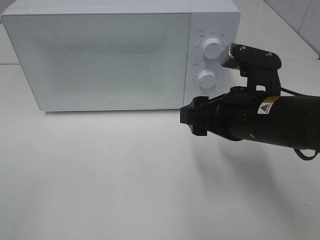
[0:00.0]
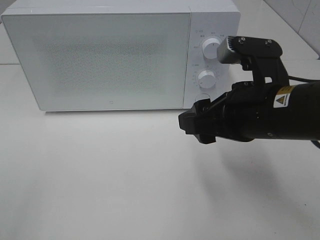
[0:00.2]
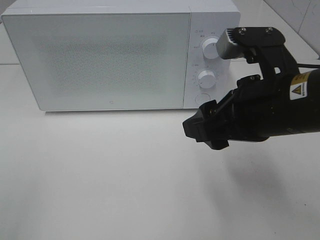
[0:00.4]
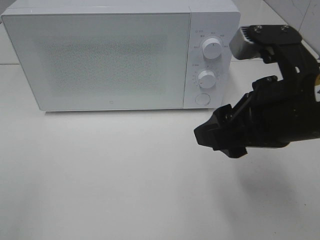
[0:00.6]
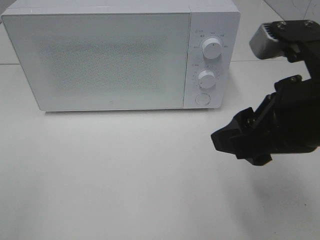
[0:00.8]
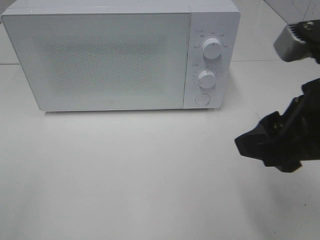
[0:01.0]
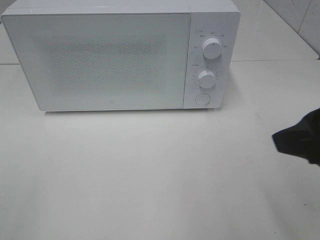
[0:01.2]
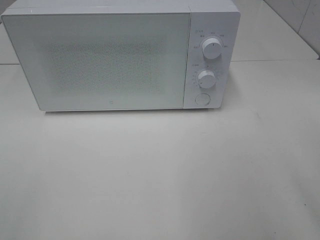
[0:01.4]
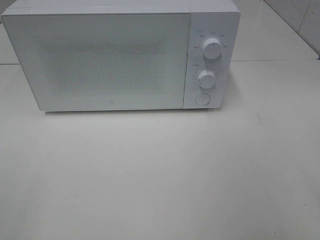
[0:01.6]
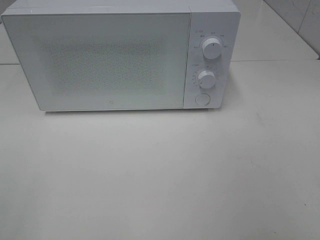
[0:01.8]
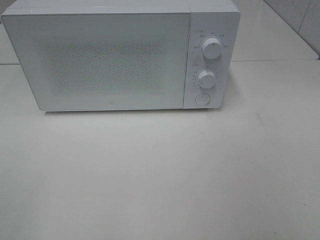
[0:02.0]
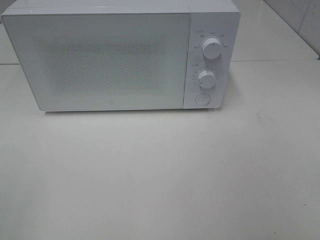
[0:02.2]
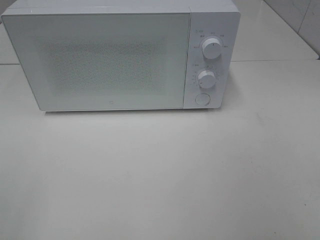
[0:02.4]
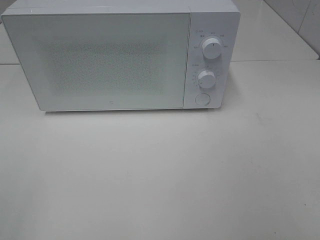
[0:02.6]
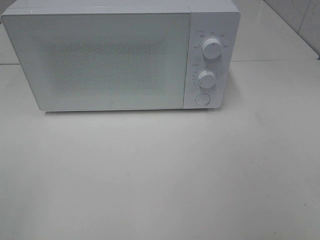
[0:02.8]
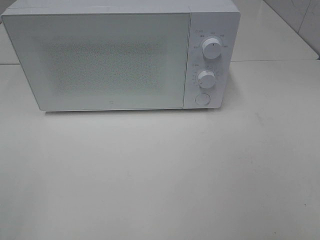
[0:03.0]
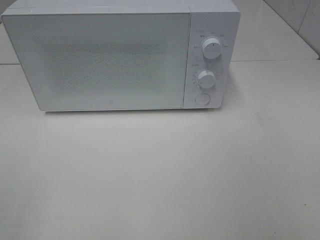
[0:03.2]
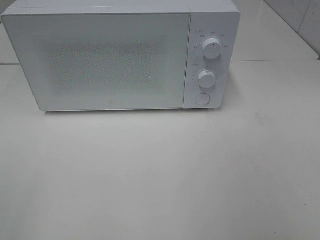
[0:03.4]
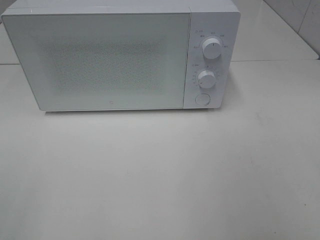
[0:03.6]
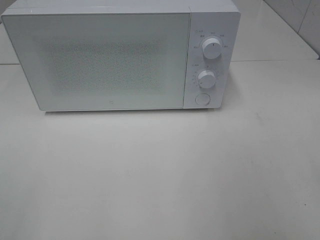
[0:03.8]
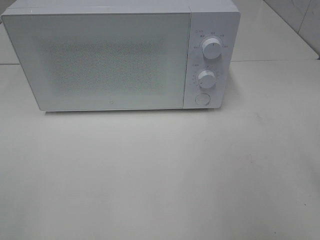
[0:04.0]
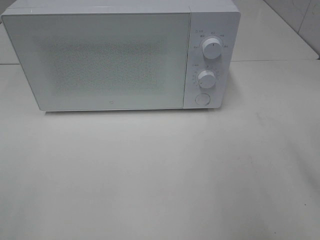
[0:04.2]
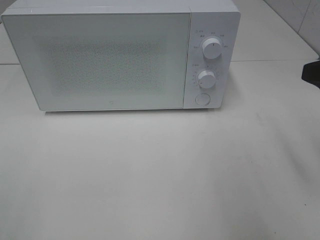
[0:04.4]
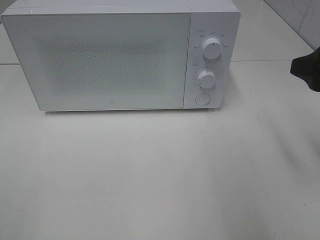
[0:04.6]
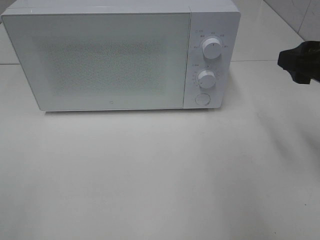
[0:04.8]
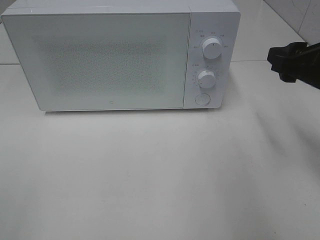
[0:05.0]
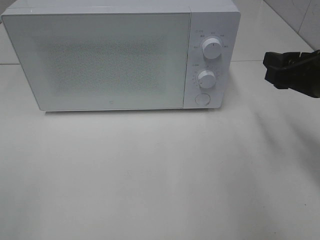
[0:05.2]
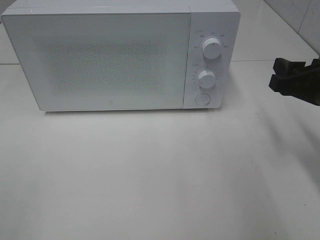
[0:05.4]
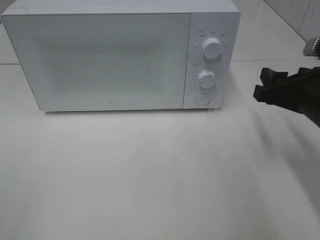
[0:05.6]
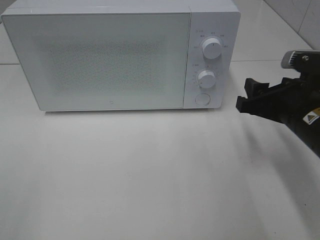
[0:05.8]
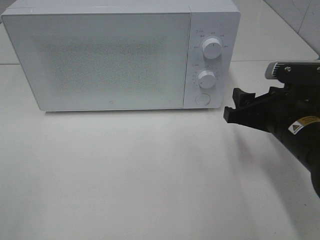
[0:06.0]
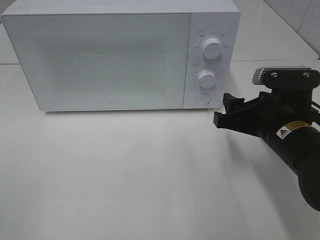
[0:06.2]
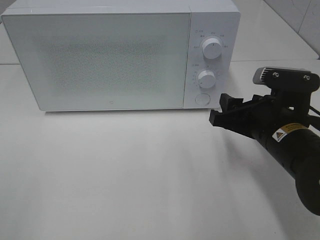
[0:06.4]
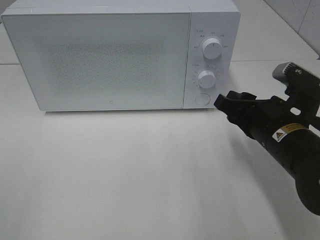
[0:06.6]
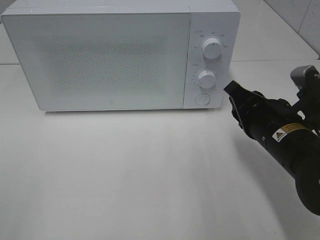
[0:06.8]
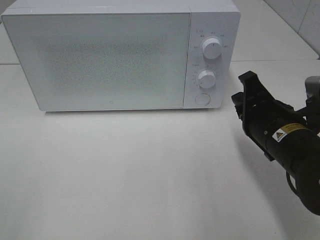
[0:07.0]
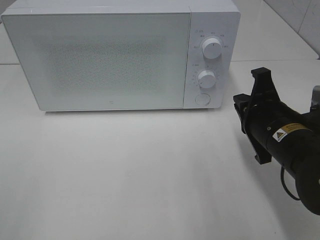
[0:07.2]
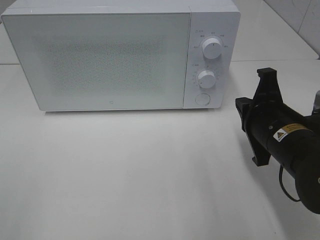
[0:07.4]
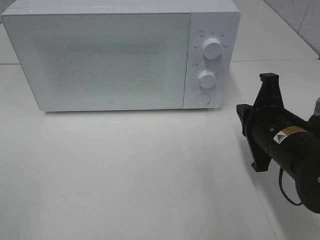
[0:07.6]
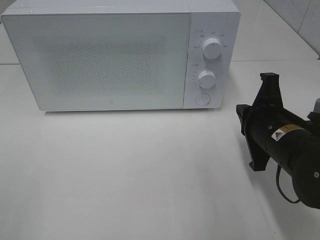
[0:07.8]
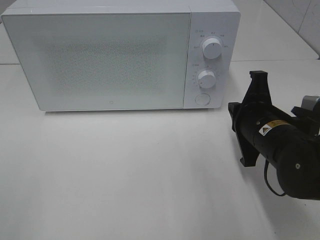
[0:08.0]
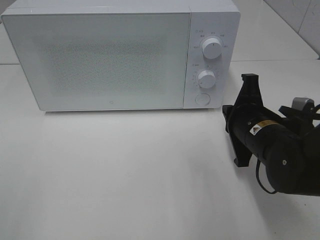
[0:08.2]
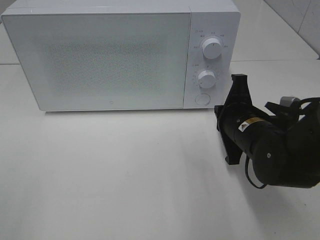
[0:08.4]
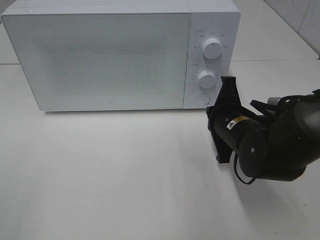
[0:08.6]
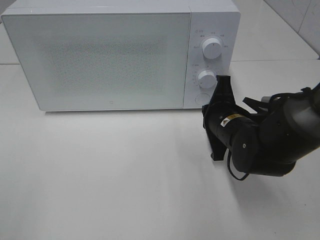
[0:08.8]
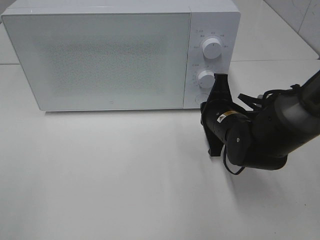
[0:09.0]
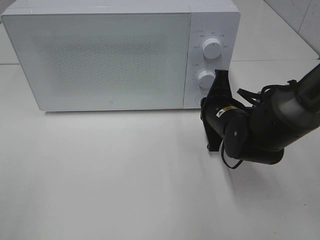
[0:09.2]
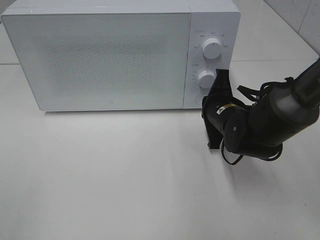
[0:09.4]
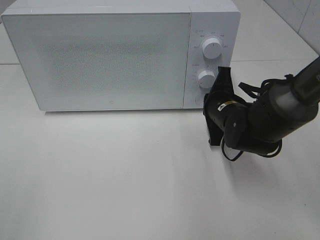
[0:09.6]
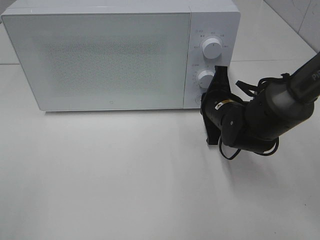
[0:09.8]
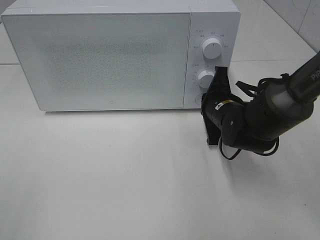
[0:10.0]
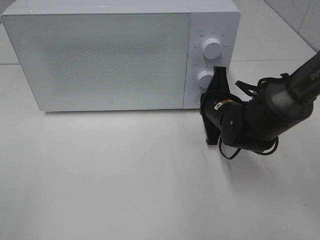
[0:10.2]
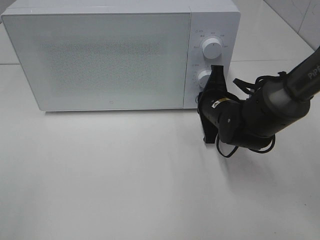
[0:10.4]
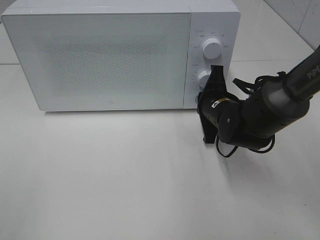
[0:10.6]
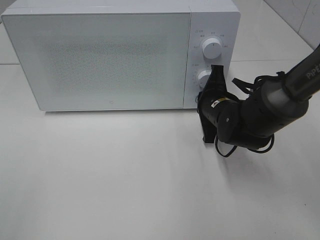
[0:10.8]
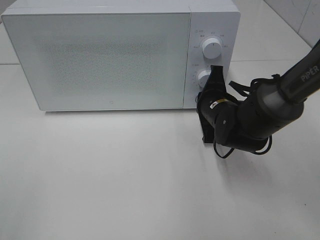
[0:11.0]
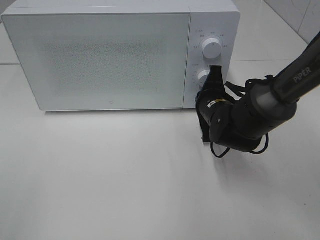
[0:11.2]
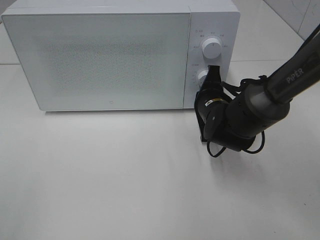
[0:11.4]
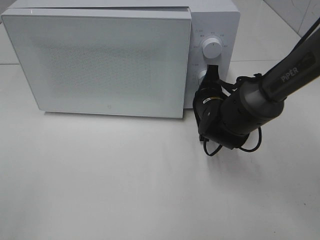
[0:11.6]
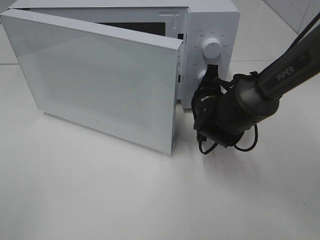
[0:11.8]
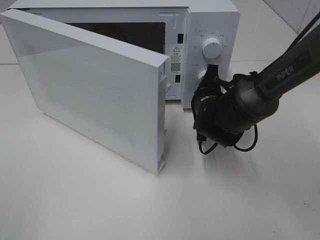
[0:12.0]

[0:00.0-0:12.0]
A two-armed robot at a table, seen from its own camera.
Task of the whole recording: Heat the burger.
0:00.0 to 0:01.6: The right gripper shifts about 20 cm to the right, backward and upward.
0:04.4 to 0:06.0: The right gripper heads downward, to the left and forward, covering roughly 15 cm.
0:06.0 to 0:07.6: The right gripper closes up.
0:07.6 to 0:09.0: The right gripper travels forward and to the left by roughly 10 cm.
0:09.0 to 0:10.4: The grippers move only a little.

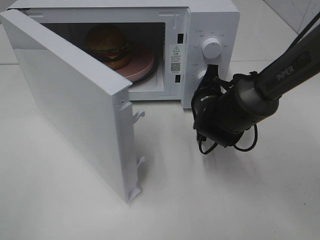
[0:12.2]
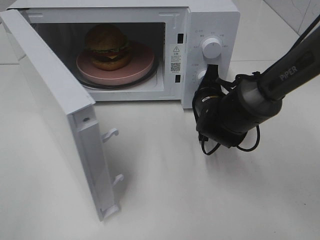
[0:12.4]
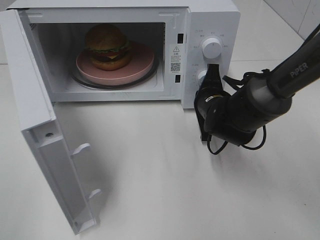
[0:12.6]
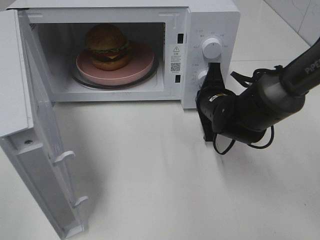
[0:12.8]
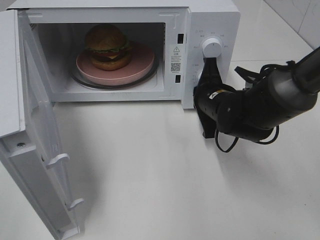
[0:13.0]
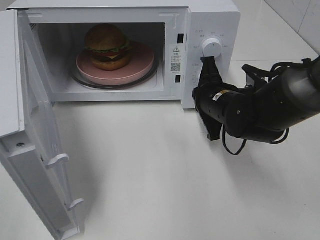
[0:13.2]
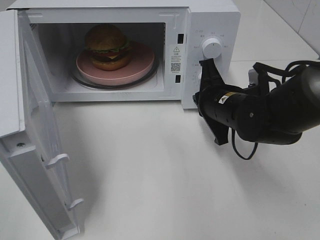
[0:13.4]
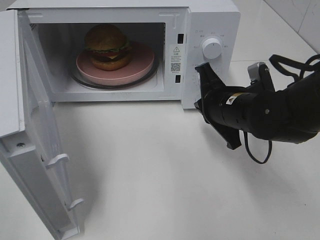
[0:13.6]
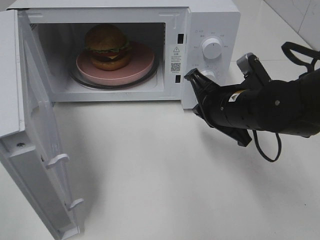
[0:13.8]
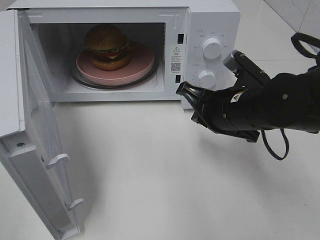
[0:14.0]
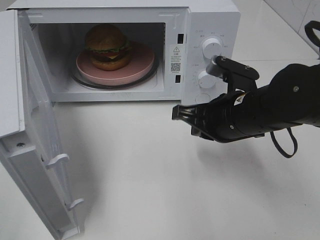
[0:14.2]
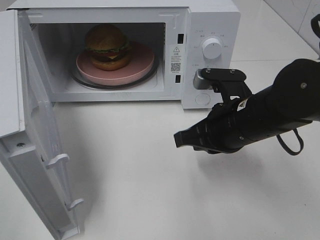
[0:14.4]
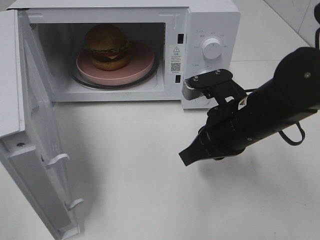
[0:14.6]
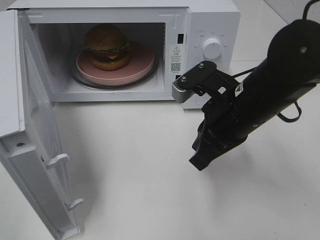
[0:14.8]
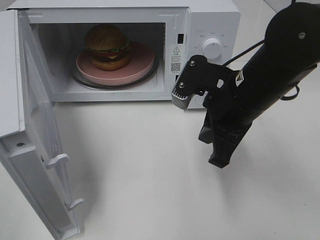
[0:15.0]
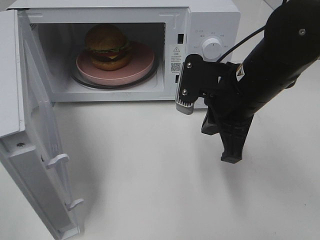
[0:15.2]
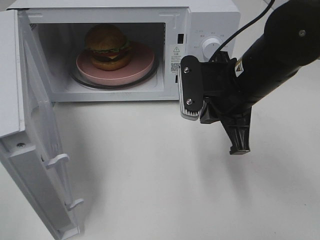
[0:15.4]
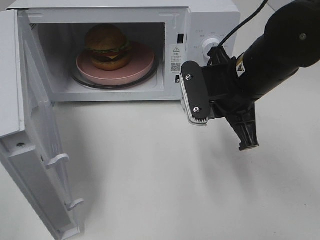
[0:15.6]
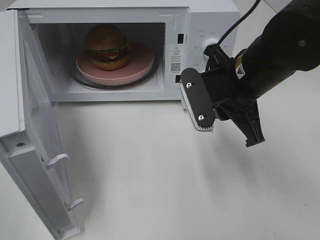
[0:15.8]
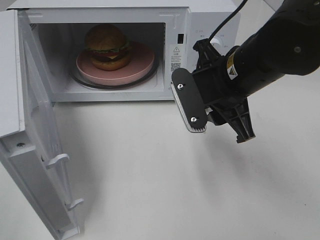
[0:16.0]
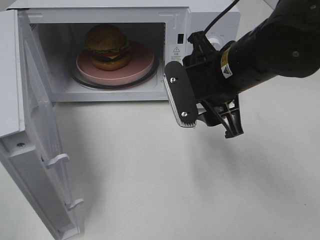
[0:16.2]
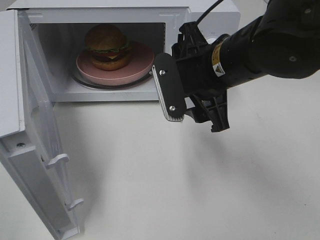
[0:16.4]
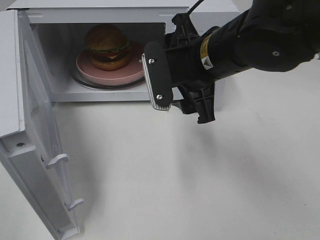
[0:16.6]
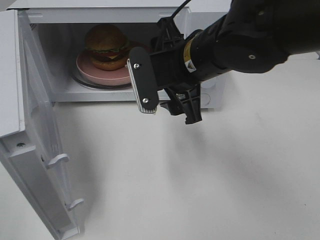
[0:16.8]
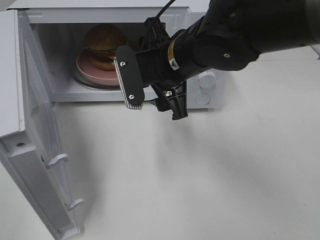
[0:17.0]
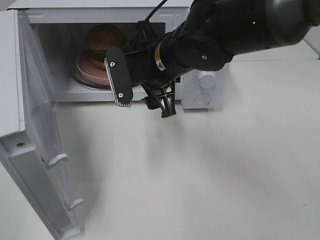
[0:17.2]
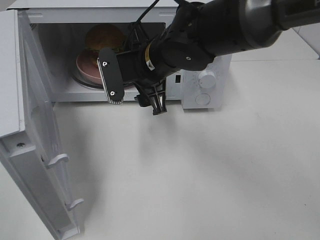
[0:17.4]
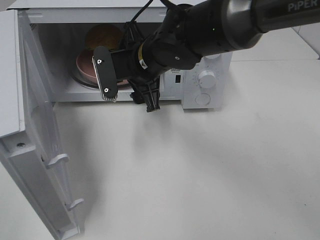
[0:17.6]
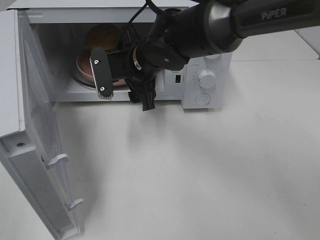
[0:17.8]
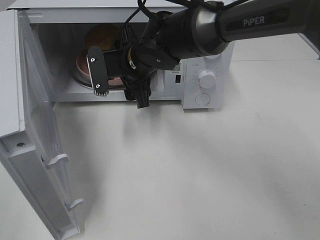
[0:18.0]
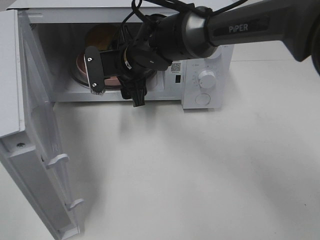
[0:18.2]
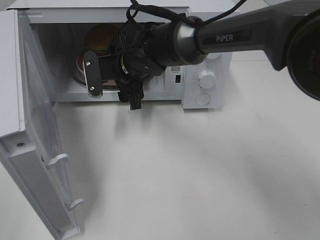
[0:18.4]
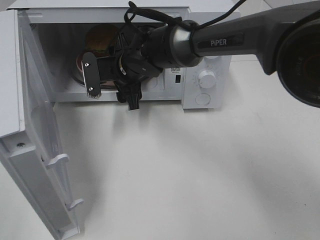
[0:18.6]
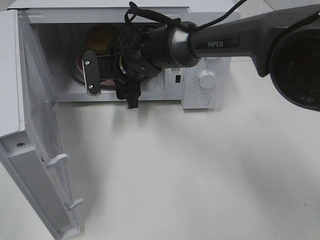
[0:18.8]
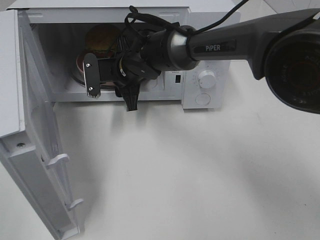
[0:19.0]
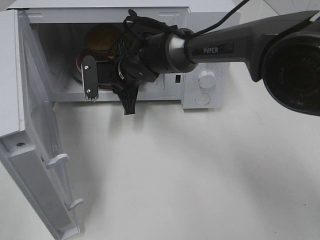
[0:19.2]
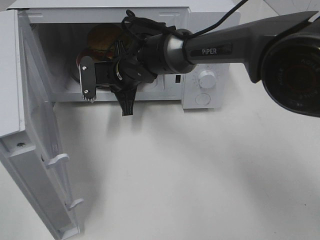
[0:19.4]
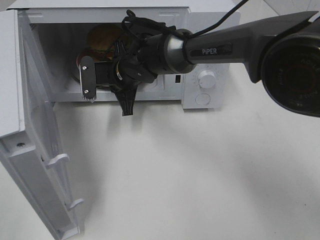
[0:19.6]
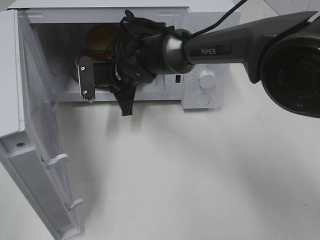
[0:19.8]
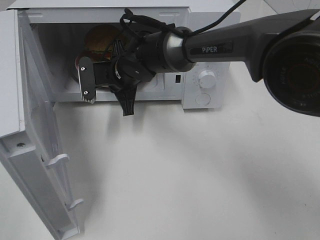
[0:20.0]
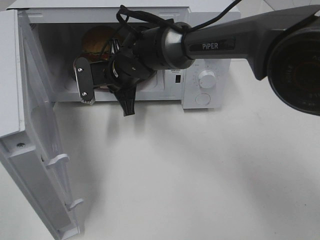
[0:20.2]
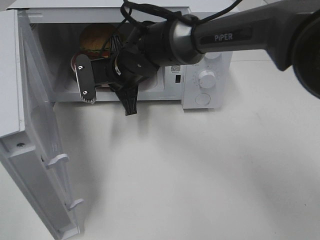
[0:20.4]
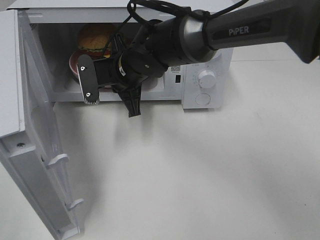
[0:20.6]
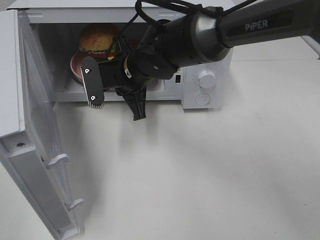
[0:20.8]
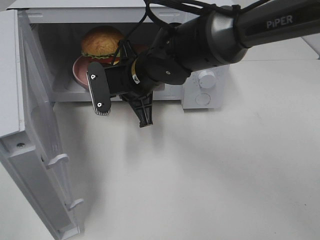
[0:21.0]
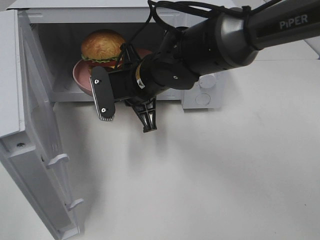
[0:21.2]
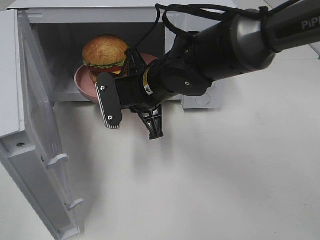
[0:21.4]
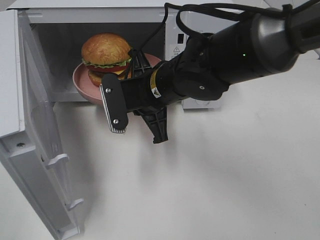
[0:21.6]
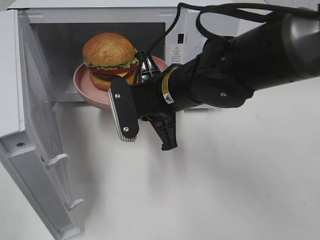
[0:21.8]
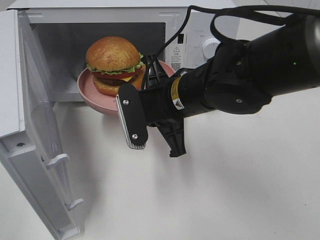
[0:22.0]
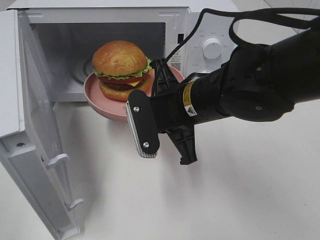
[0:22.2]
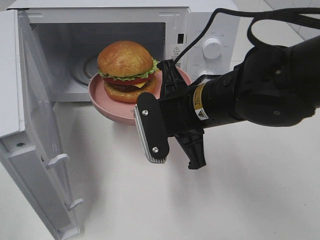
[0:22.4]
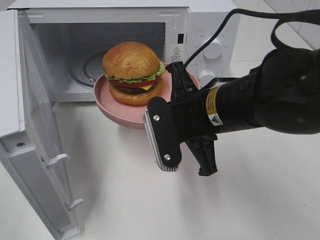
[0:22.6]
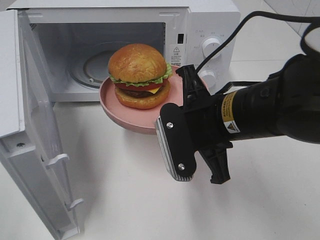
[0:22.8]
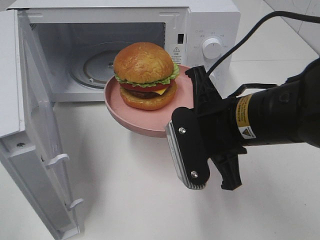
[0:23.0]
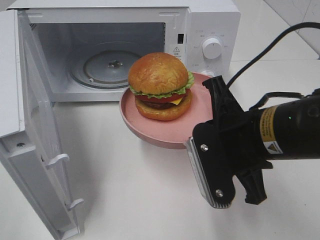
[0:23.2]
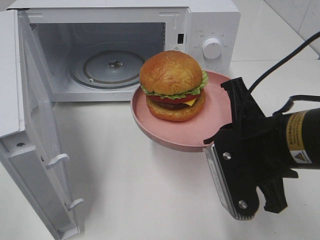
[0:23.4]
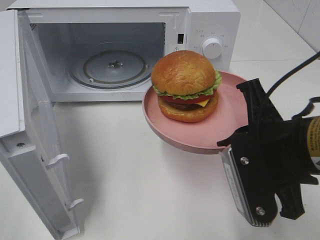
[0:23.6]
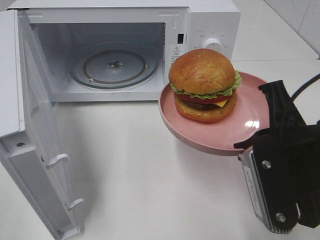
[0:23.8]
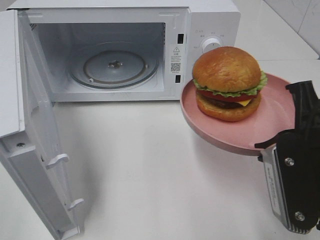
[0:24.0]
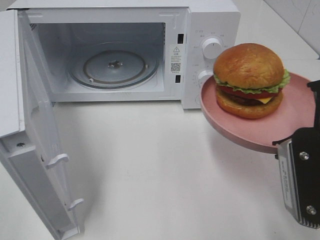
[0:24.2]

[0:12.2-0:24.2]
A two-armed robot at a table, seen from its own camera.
Task of the whole recording: Heat the burger.
Step, 0:13.0 to 0:20.0: Right hand: grab the plate with the hamburger.
0:12.2 to 0:13.8: The right gripper travels backward and upward by some 10 cm.
0:13.8 to 0:15.2: The right gripper heads upward, covering some 5 cm.
0:15.2 to 0:16.6: The right gripper travels to the left by some 5 cm, and opens up.
0:16.6 to 0:18.2: The right gripper goes approximately 15 cm forward, to the left and downward.
0:18.2 to 0:19.8: The right gripper closes.
0:19.8 to 0:21.2: The right gripper is displaced backward by roughly 10 cm.
0:21.2 to 0:22.6: The right gripper is displaced backward and to the right by approximately 15 cm.
0:22.6 to 0:24.2: The right gripper travels to the right and backward by about 15 cm.
